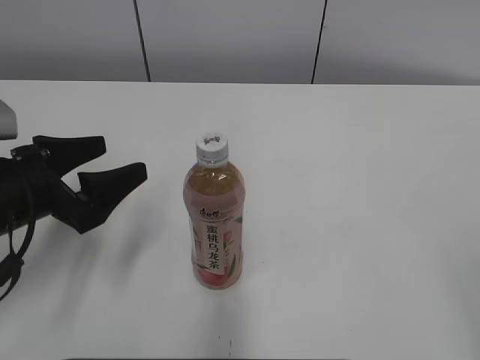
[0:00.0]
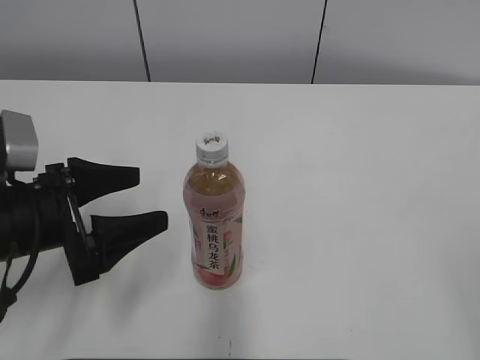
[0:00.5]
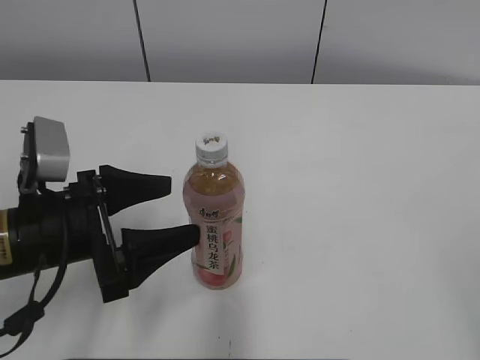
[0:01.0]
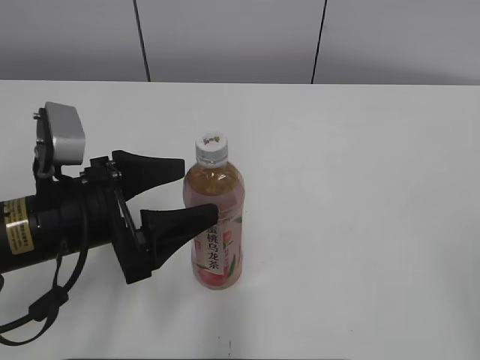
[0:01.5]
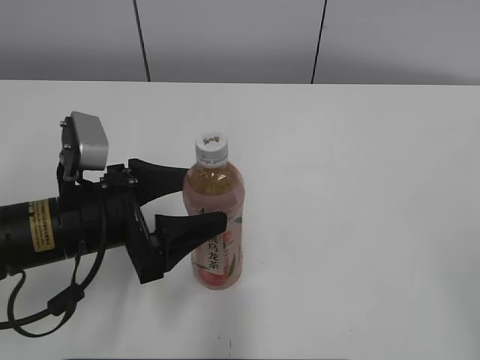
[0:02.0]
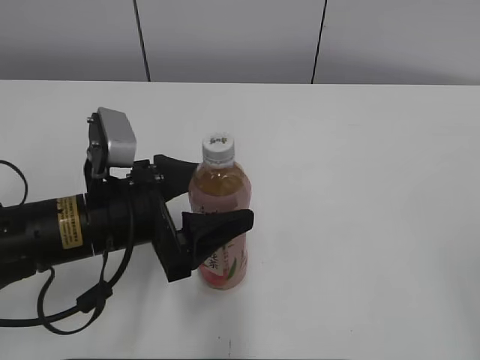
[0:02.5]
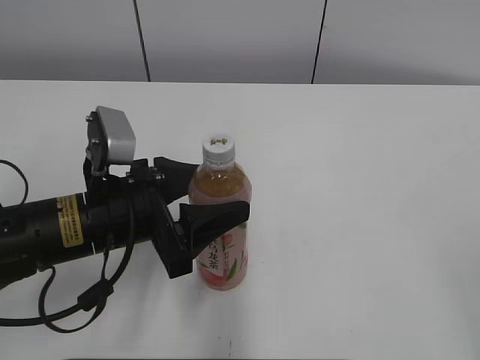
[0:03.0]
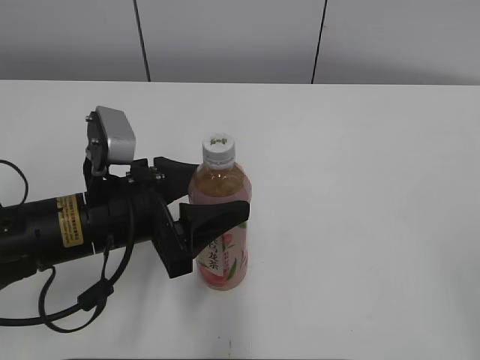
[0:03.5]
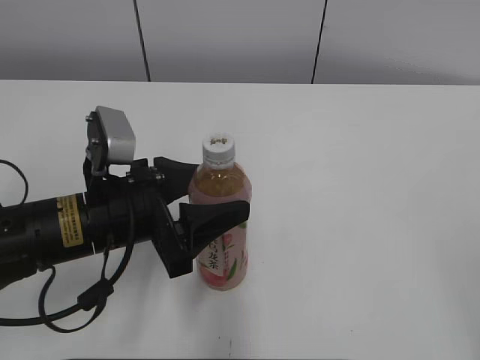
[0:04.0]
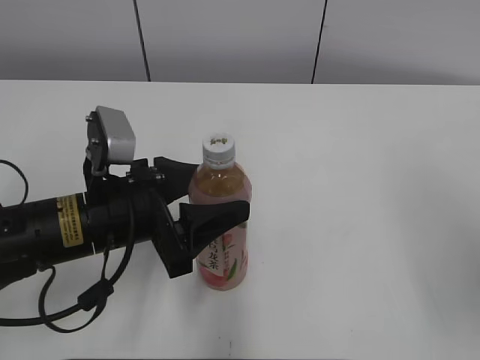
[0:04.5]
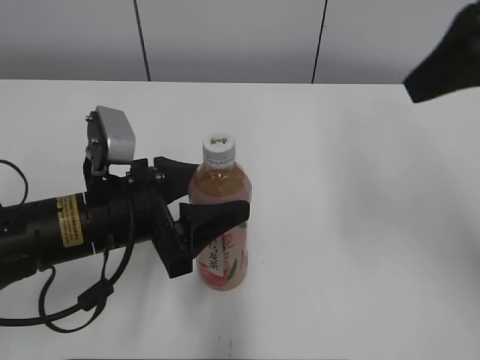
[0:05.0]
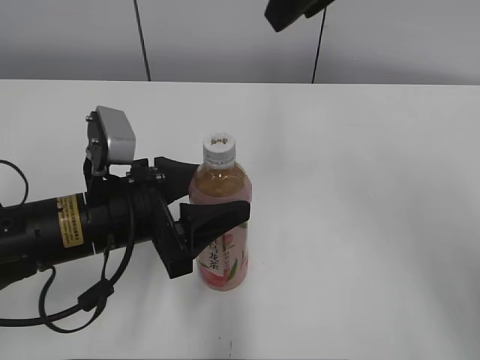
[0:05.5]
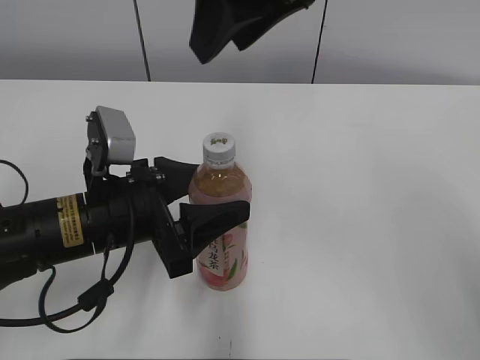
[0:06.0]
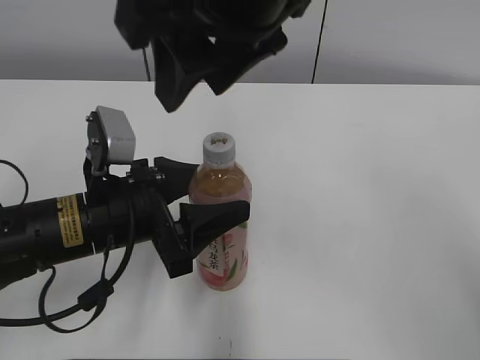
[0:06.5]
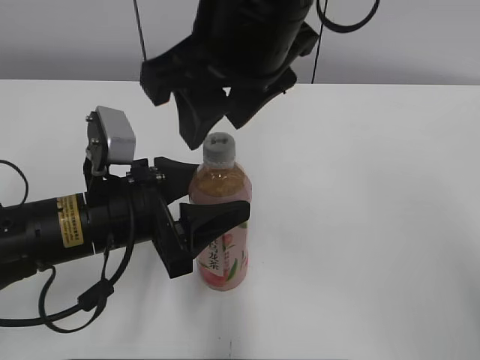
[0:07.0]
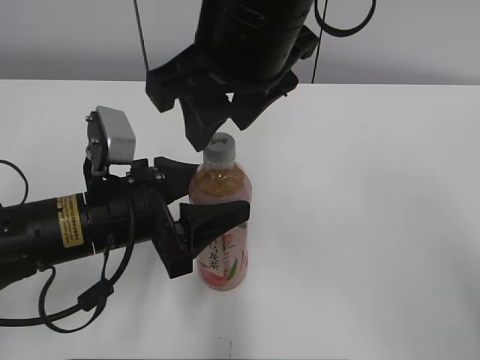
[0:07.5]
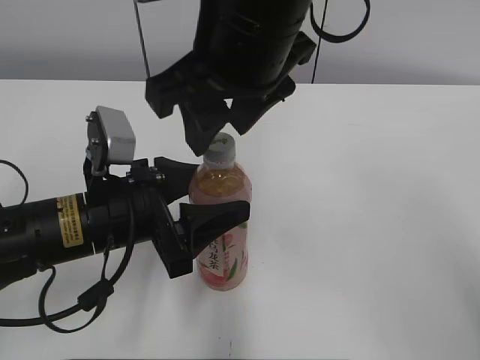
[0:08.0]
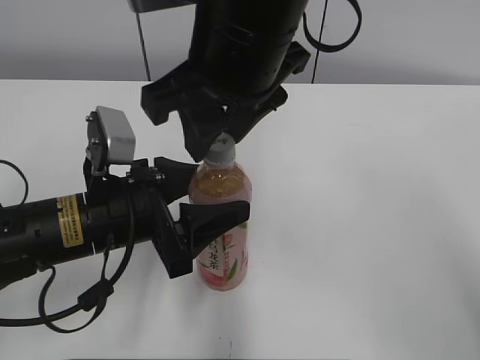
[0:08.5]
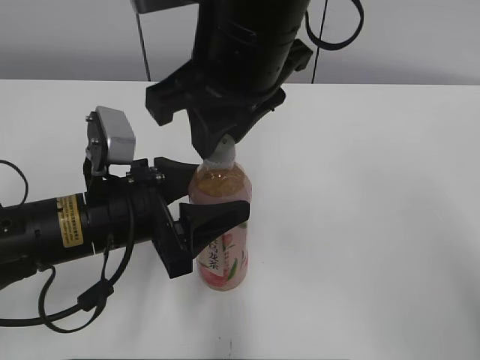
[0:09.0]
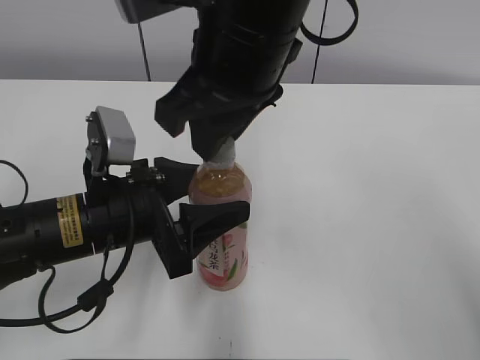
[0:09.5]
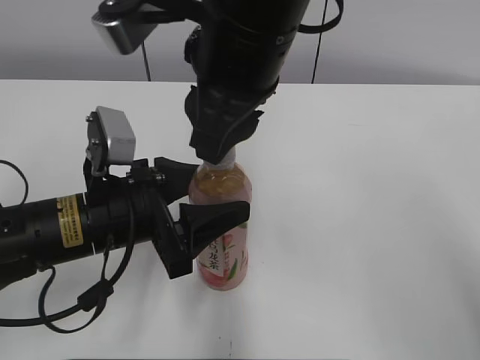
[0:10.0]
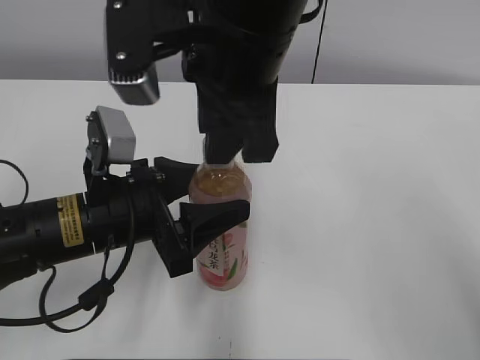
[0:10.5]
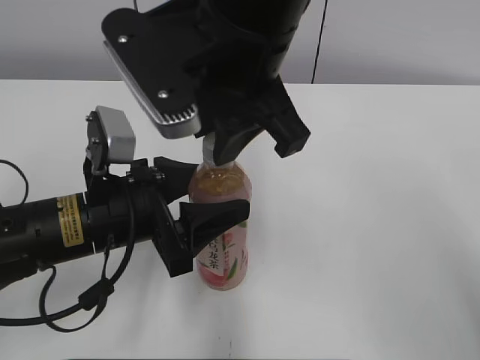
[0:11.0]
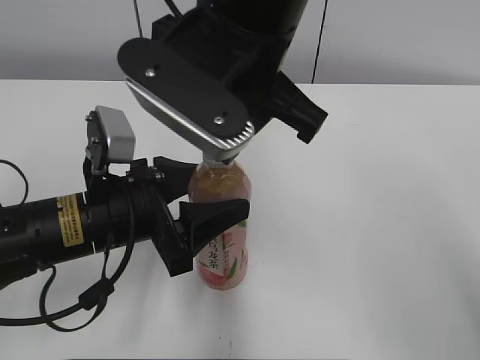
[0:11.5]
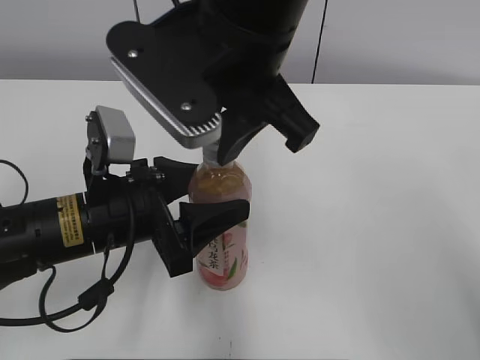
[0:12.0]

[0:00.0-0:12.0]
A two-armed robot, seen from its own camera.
Step, 0:00.0 to 0:03.0: Grab the Peach Oolong Tea with the left hand.
0:00.0 to 0:02.0: The left gripper travels to the right by approximately 5 cm.
0:02.0 to 0:04.0: The grippers move only a little.
0:04.0 to 0:06.0: The right gripper goes about 40 cm forward and to the left, and closes.
0:06.0 to 0:08.0: The right gripper heads downward, covering roughly 5 cm.
0:08.0 to 0:10.0: The right gripper closes its fingers.

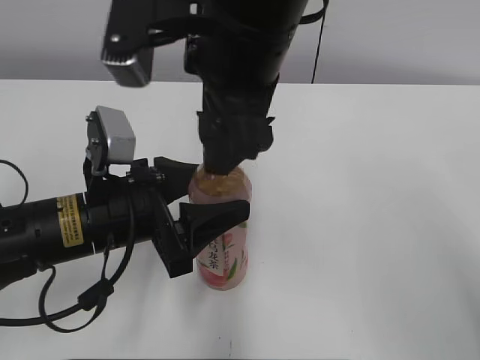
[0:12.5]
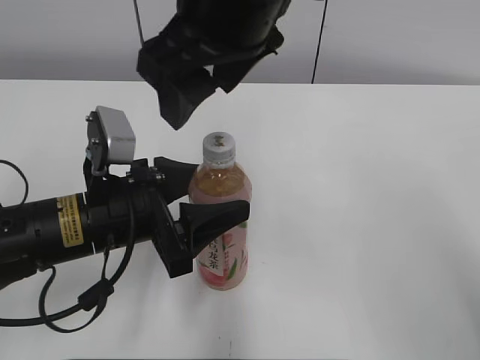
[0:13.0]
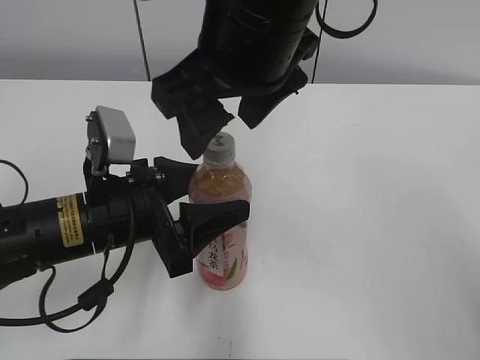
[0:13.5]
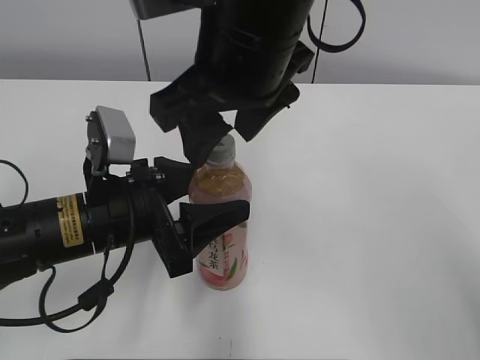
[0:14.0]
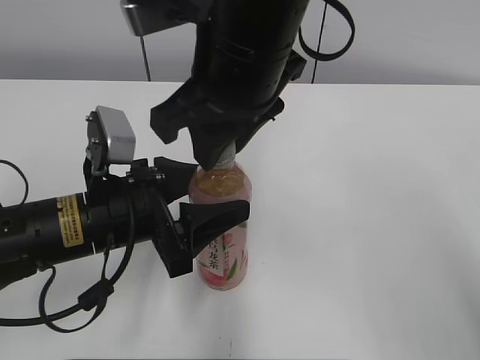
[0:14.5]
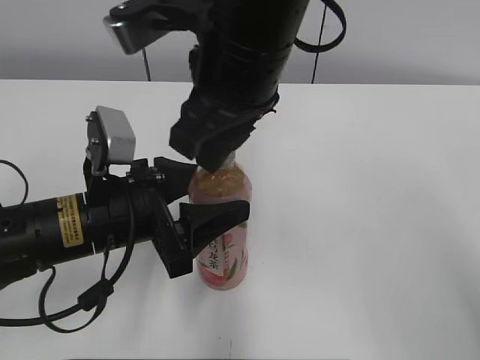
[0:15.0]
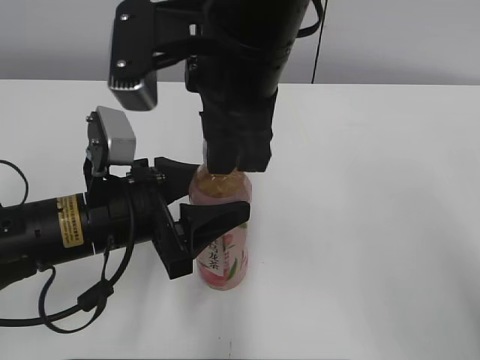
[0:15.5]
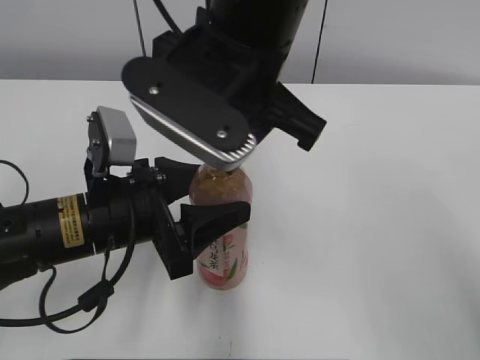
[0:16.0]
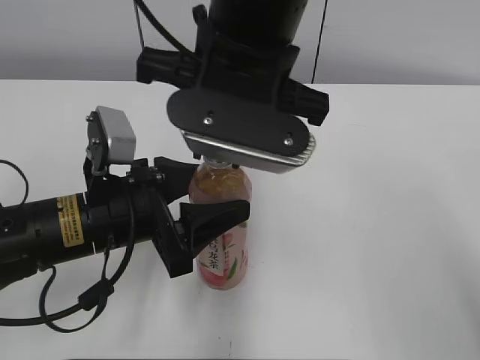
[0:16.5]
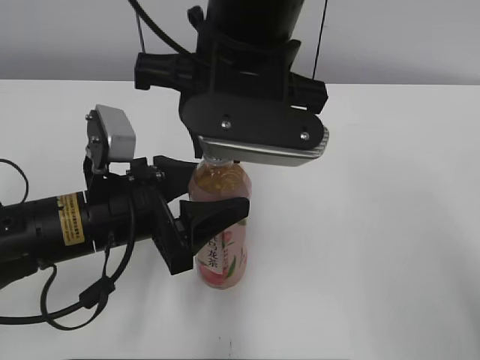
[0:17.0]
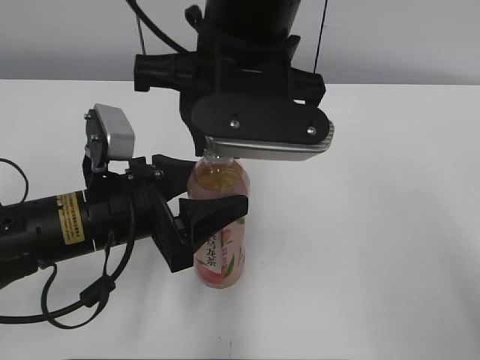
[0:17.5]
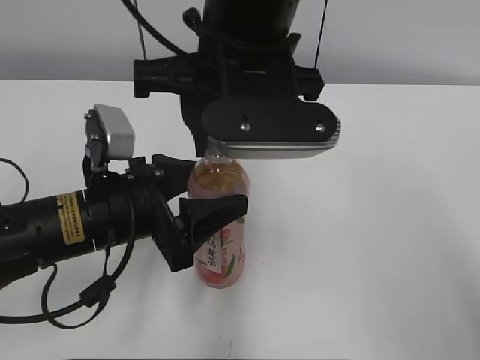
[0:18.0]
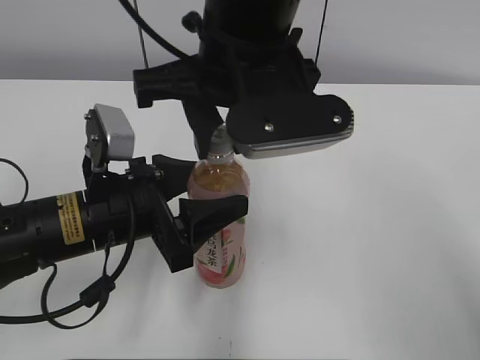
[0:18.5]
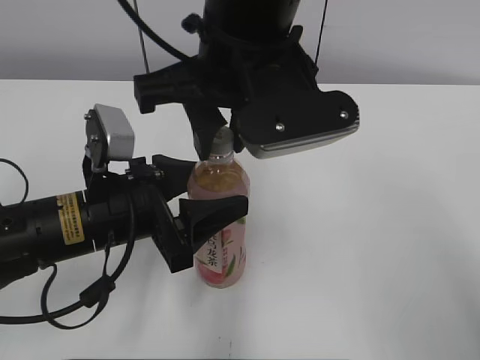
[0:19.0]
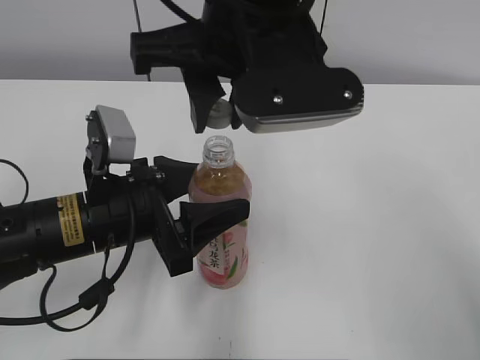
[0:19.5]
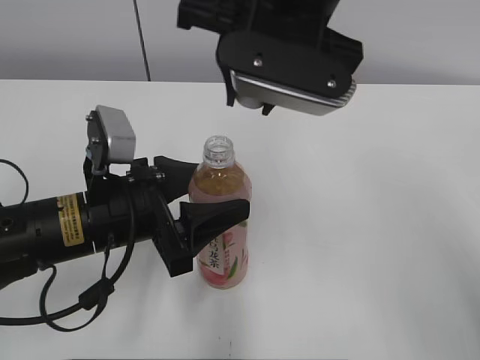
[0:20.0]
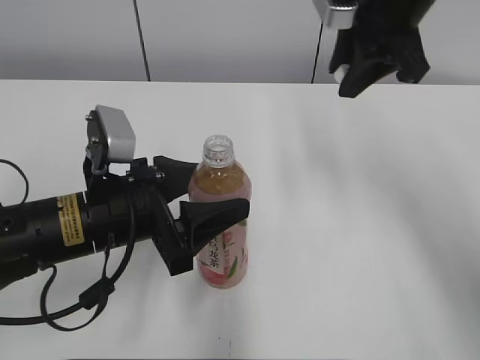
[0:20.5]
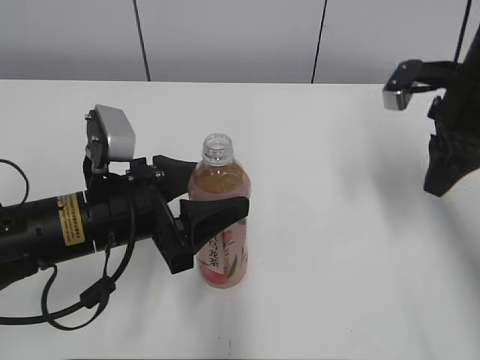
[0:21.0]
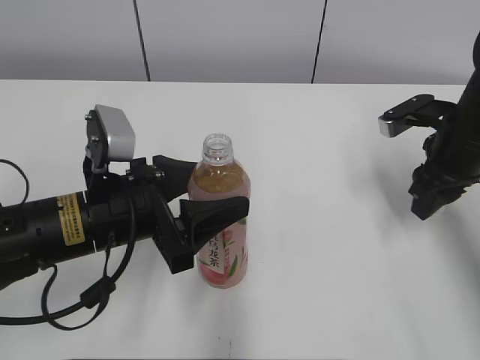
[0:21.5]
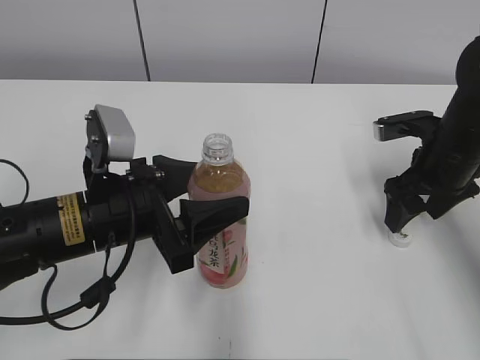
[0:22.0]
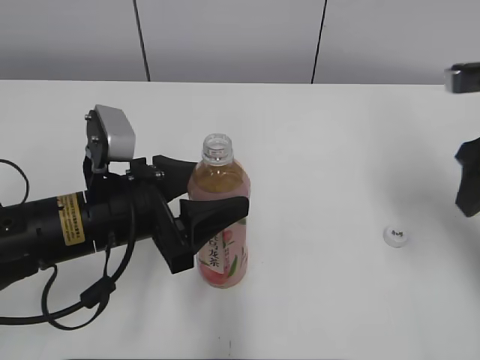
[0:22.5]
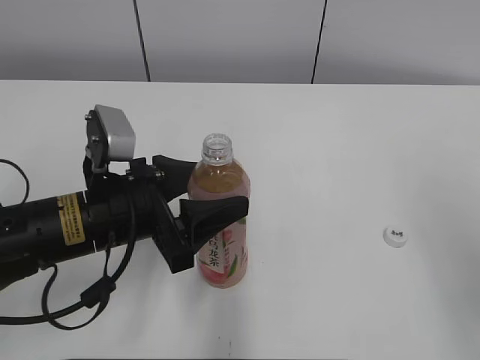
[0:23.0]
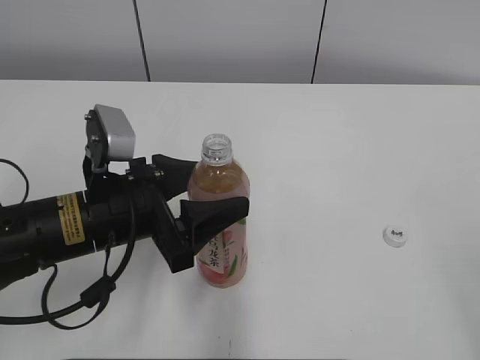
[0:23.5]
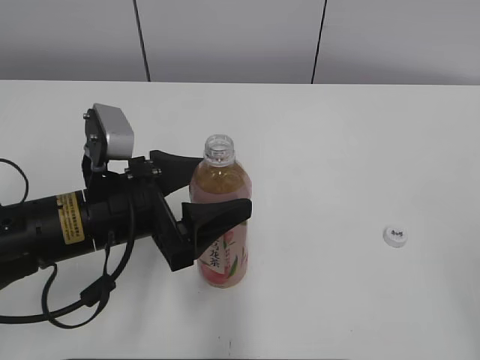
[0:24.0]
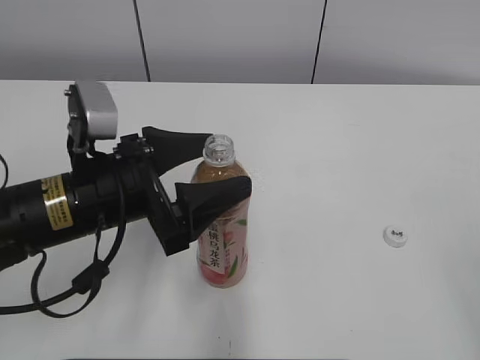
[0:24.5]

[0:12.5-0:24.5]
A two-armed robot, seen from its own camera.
Step, 0:19.5 to 0:22.0: Place the bottle cap on the right.
0:12.5 to 0:14.5: The right gripper closes up.
0:18.5 to 0:20.5: The right gripper shifts roughly 20 cm to the right and forward.
0:20.5 to 0:22.5: The right gripper is displaced to the right, backward and downward by about 15 cm, and opens.
0:22.5 to 0:24.5: The right gripper is displaced backward by approximately 30 cm.

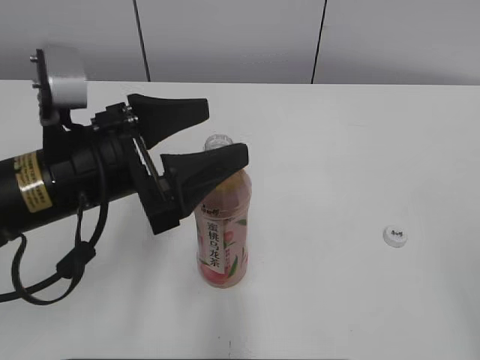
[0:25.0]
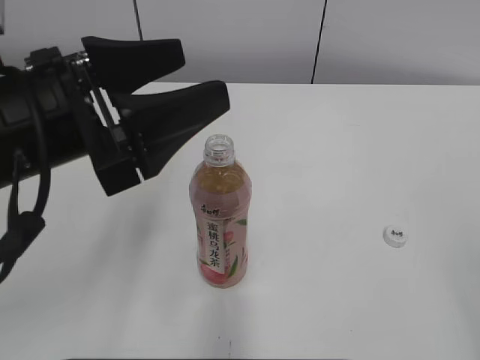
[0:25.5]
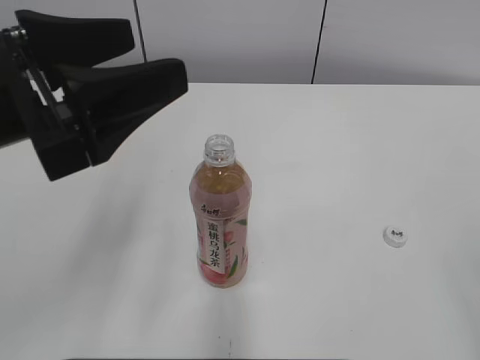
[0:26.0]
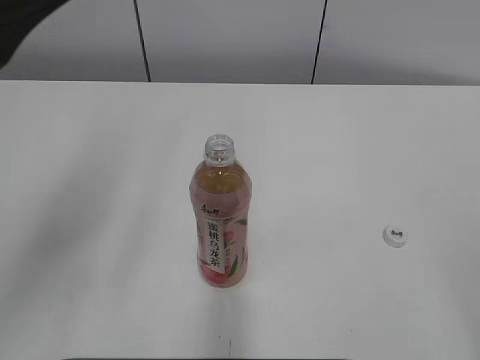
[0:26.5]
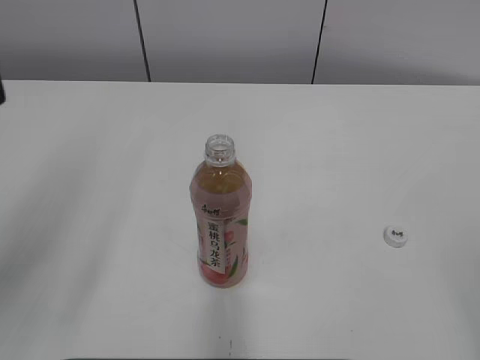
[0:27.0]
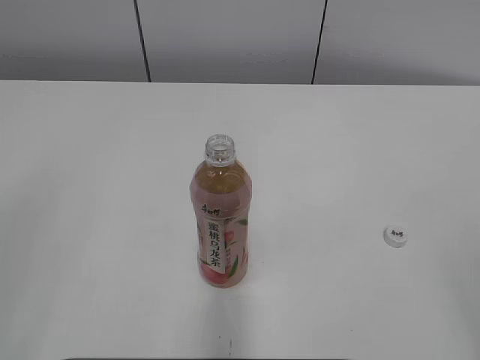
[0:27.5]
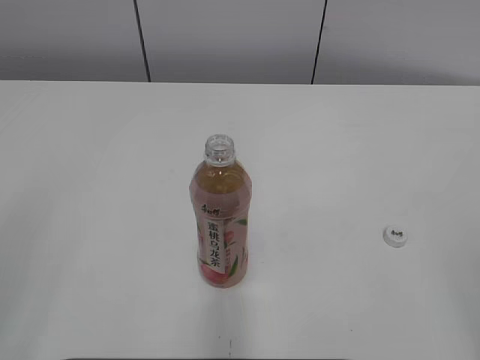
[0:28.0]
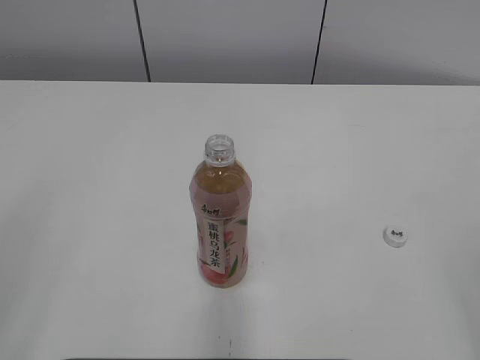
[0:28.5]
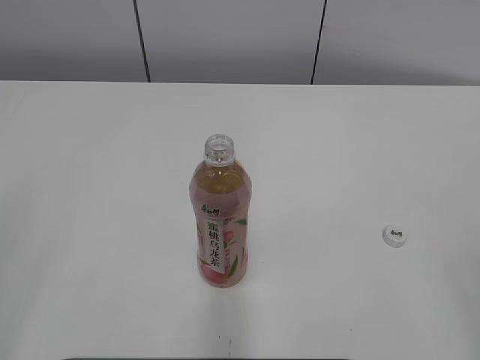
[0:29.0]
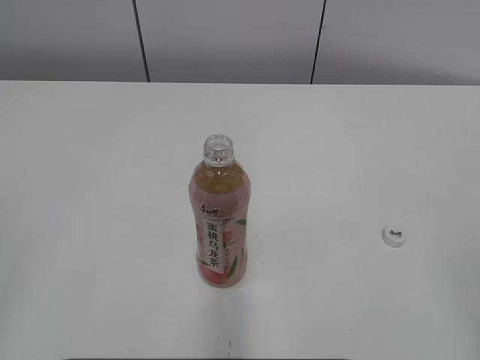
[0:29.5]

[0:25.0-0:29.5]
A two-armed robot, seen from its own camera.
0:25.0 to 0:27.0: The left gripper heads upward, to the left and backward, covering approximately 20 cm.
0:27.0 to 0:29.5: The left gripper goes approximately 15 cm backward and to the left.
